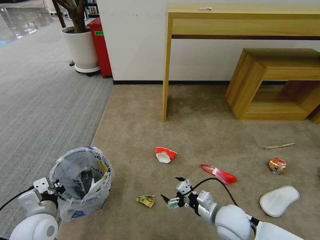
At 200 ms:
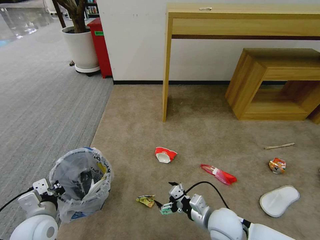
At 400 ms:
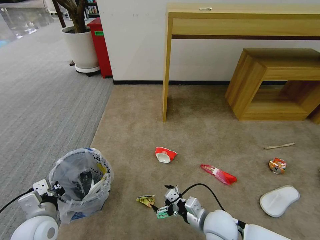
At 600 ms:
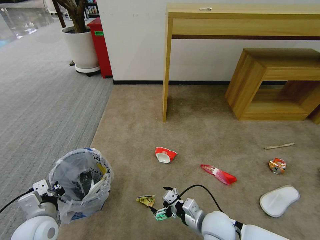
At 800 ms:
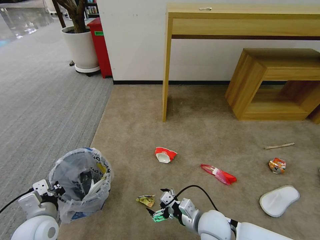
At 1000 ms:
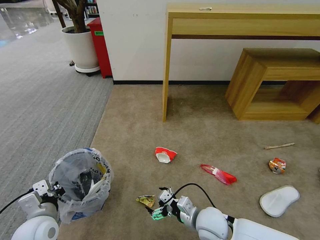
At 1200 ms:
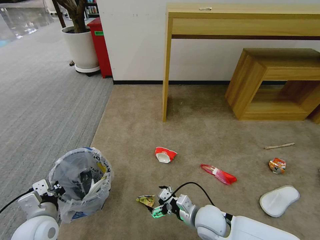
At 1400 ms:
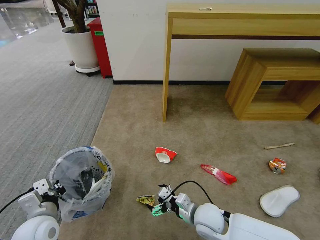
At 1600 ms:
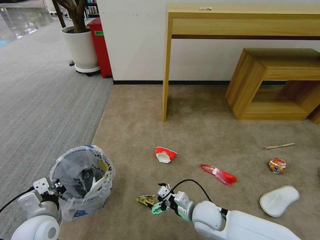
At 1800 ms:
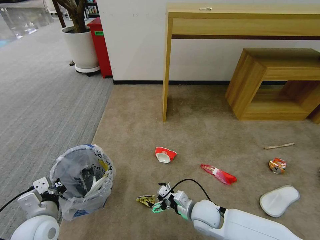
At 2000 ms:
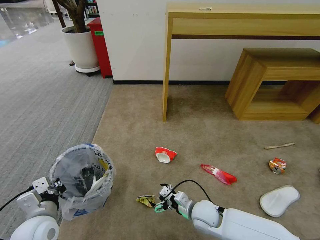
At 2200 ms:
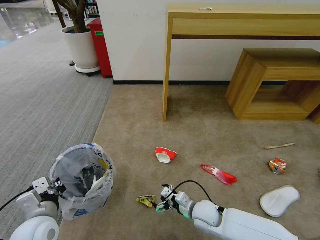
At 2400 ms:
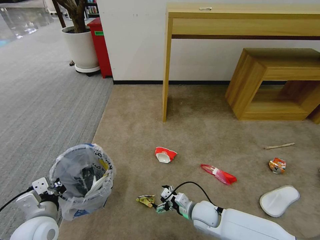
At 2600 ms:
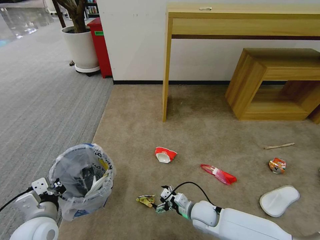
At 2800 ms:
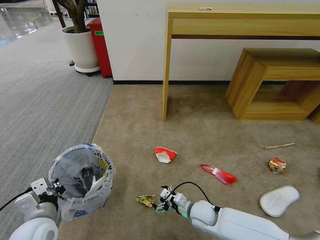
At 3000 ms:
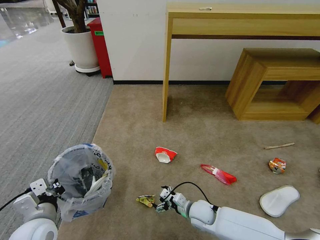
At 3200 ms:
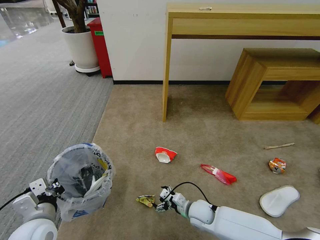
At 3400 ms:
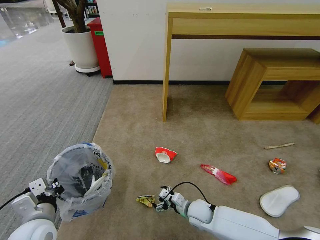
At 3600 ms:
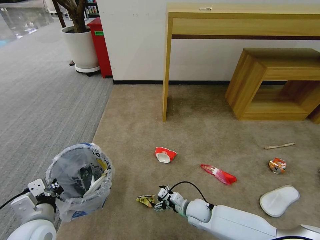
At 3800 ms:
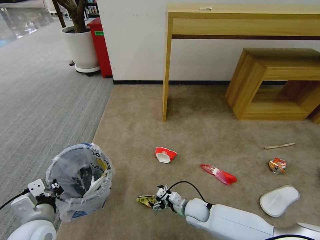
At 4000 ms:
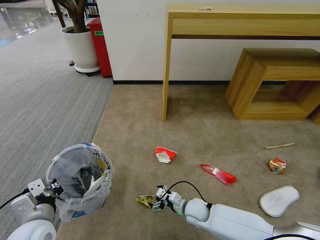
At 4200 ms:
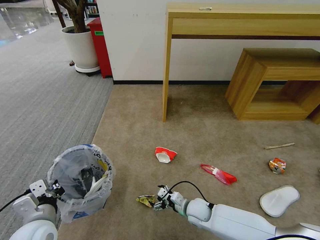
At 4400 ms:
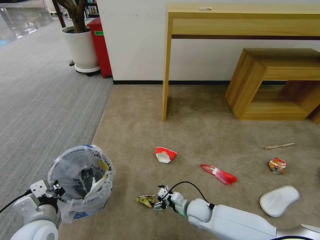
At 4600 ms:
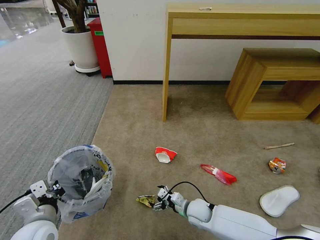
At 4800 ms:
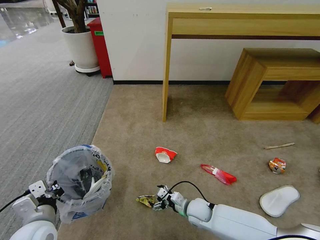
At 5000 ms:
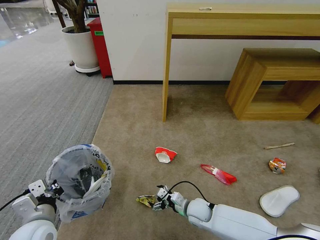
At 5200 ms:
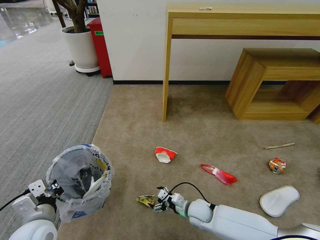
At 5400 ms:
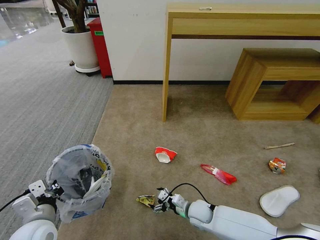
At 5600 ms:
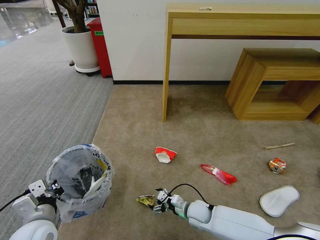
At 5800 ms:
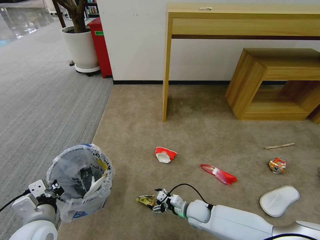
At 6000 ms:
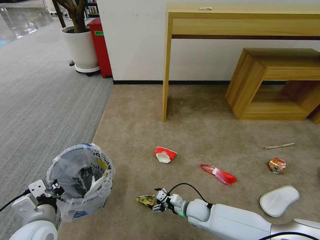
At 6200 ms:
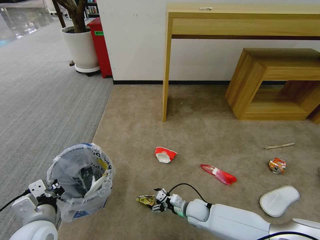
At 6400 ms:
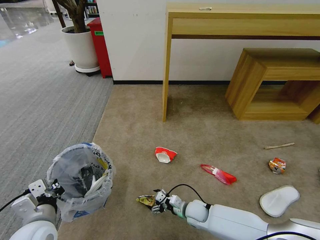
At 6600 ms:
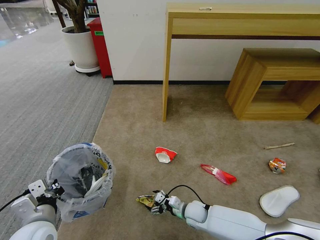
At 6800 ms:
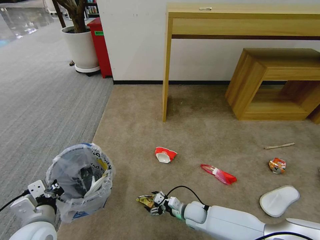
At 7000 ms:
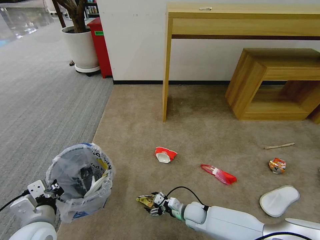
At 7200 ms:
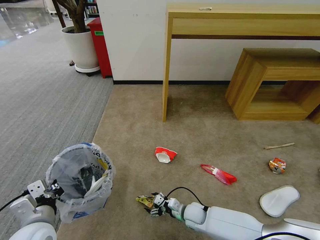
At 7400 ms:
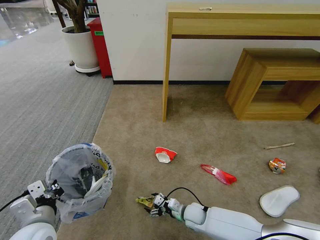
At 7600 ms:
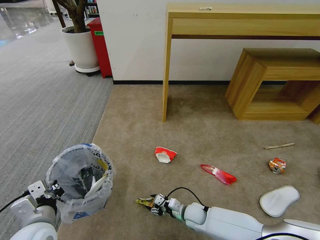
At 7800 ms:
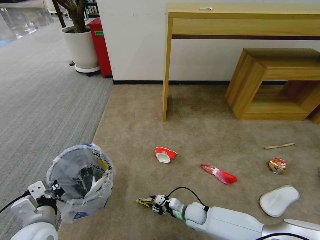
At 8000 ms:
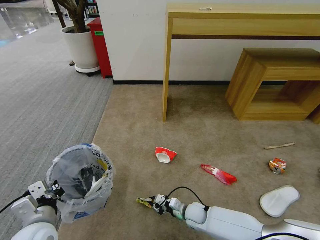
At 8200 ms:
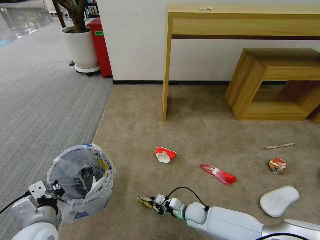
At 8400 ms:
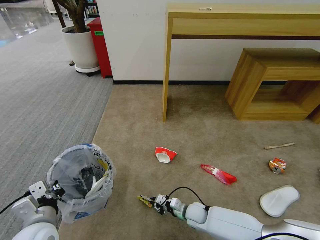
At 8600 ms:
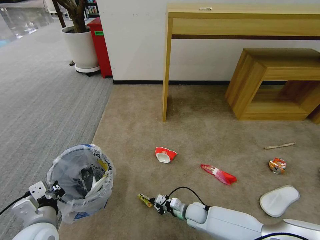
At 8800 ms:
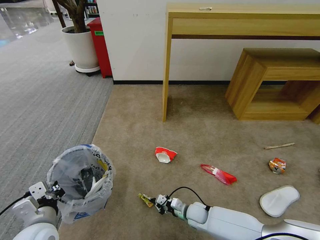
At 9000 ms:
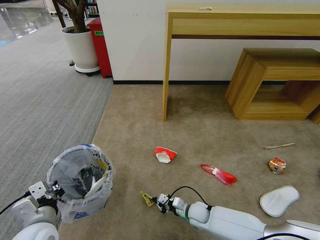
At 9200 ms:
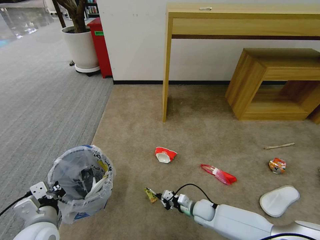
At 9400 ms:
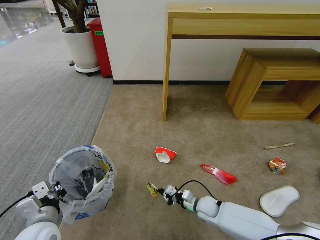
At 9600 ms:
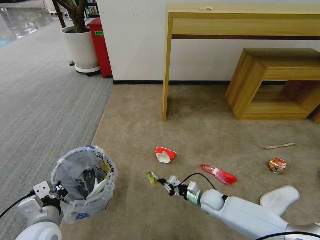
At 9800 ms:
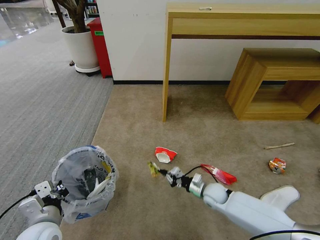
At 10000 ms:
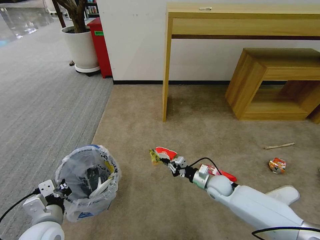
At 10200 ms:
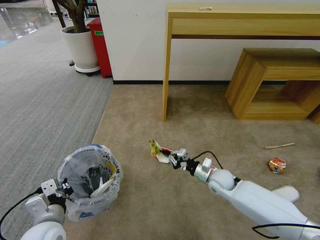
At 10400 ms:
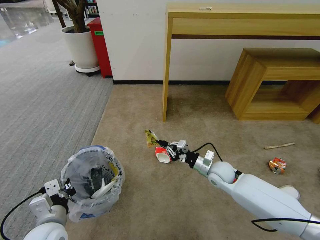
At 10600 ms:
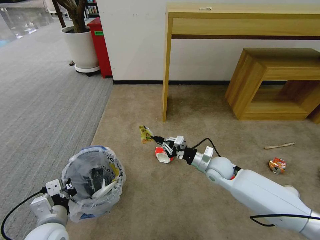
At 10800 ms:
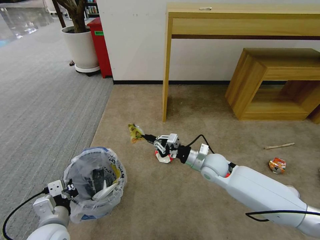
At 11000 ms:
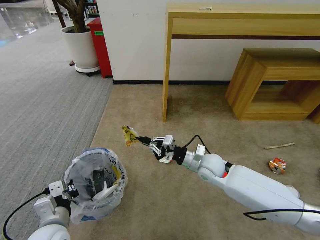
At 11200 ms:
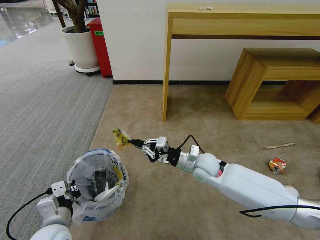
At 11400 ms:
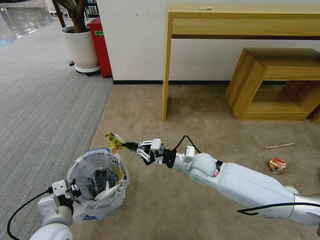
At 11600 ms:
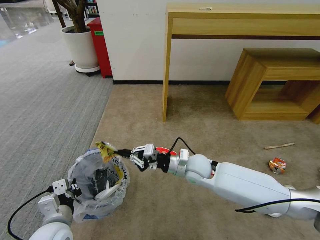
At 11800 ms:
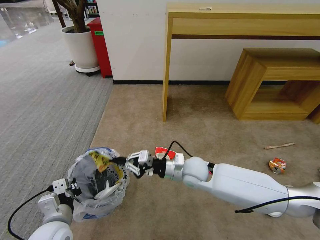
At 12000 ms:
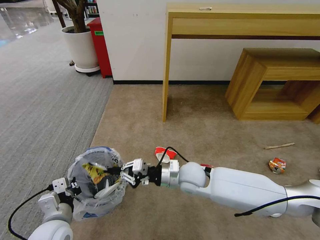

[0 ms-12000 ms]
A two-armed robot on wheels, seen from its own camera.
Task of the whole recording: Pick up the trash bin and place the garbage on the floor into it.
0 ms to 1600 ms: The right gripper moves to the left, roughly 5 cm.
1600 ms to 3000 ms: The right gripper is displaced downward by roughly 10 cm.
3000 ms to 6000 ms: There are only small adjustments of the grippers.
6000 ms to 7600 ms: The grippers stay close to where they were, moving slightly.
7600 ms to 9000 ms: The right gripper closes up.
9000 ms to 10400 ms: The right gripper moves upward and forward, approximately 20 cm.
10400 ms to 12000 ms: The right gripper travels to the left and upward by roughly 15 cm.

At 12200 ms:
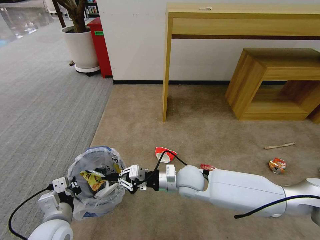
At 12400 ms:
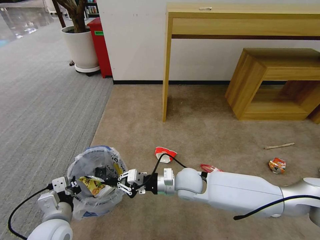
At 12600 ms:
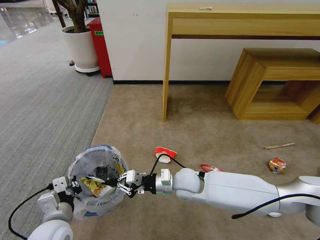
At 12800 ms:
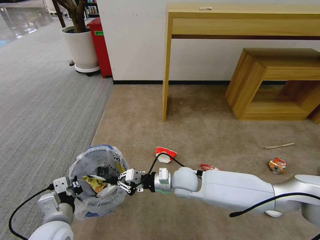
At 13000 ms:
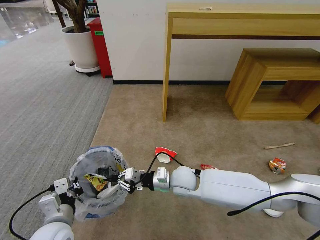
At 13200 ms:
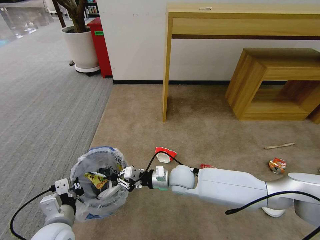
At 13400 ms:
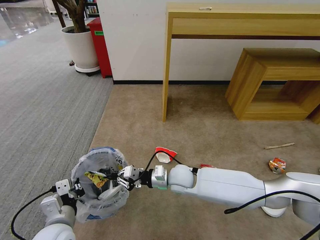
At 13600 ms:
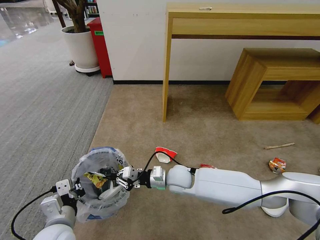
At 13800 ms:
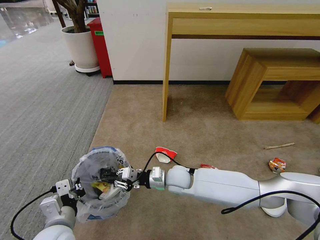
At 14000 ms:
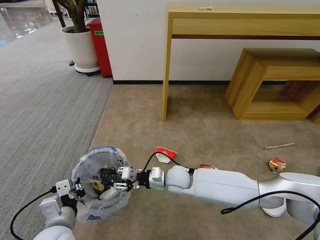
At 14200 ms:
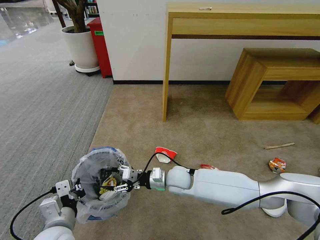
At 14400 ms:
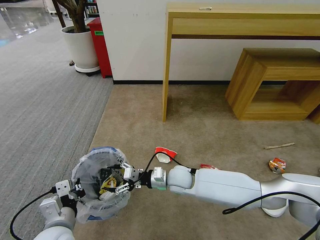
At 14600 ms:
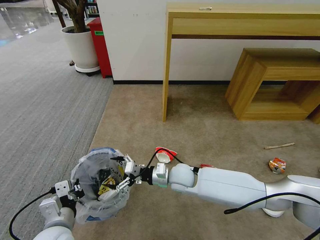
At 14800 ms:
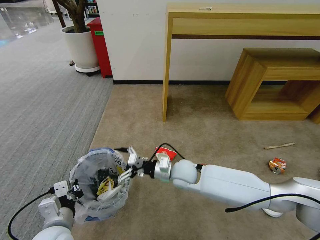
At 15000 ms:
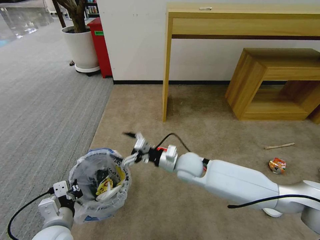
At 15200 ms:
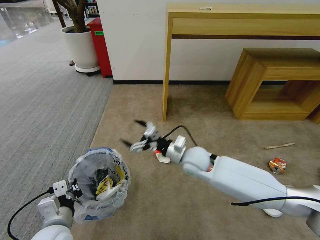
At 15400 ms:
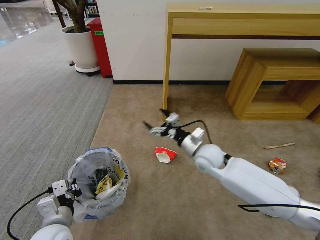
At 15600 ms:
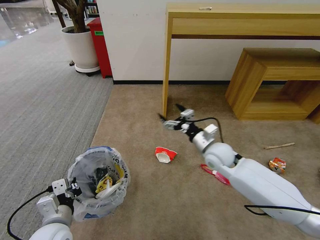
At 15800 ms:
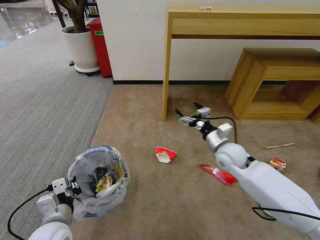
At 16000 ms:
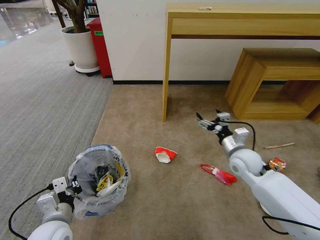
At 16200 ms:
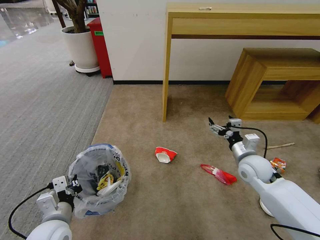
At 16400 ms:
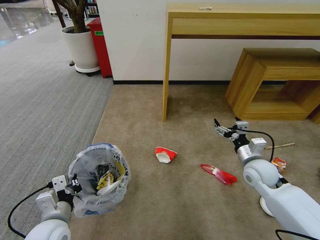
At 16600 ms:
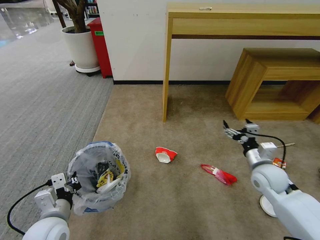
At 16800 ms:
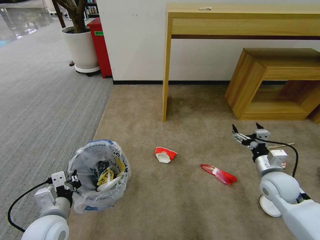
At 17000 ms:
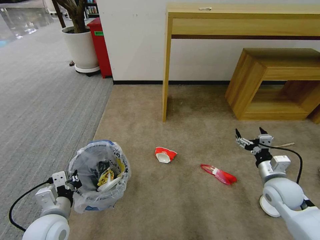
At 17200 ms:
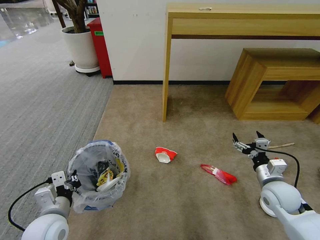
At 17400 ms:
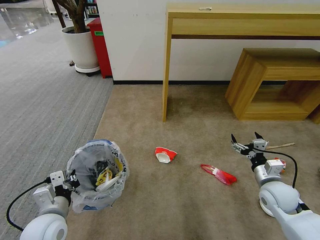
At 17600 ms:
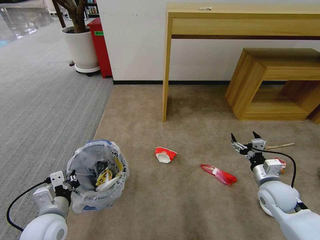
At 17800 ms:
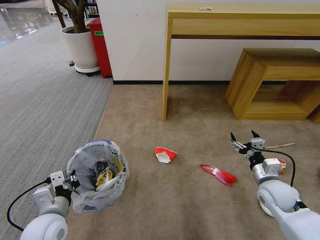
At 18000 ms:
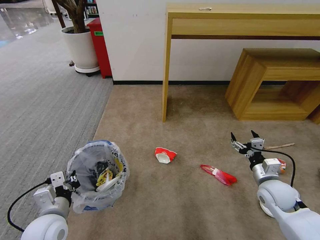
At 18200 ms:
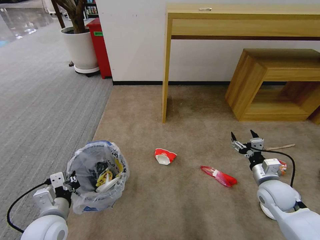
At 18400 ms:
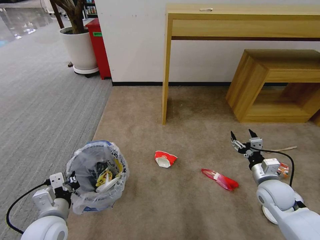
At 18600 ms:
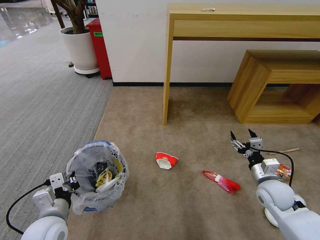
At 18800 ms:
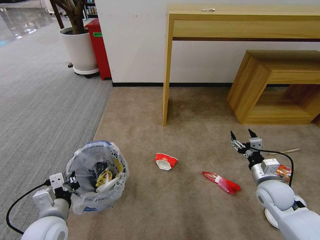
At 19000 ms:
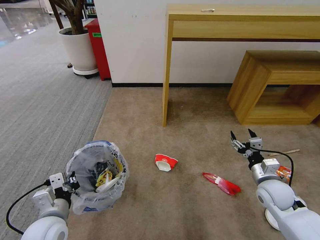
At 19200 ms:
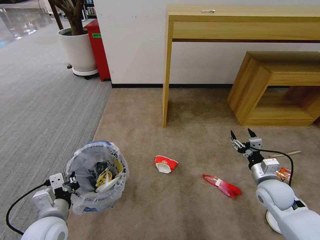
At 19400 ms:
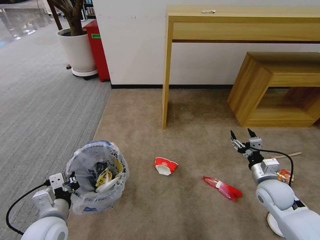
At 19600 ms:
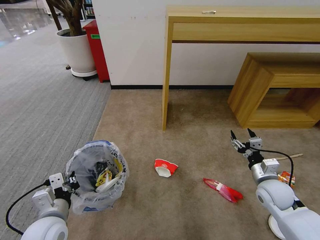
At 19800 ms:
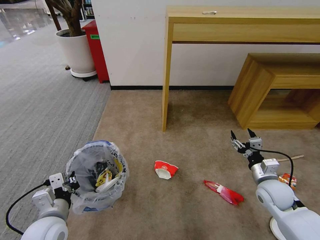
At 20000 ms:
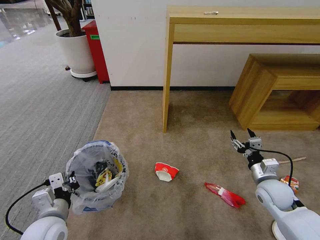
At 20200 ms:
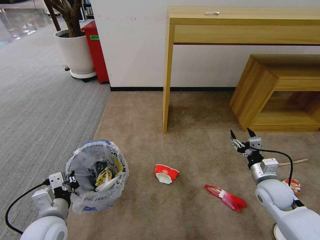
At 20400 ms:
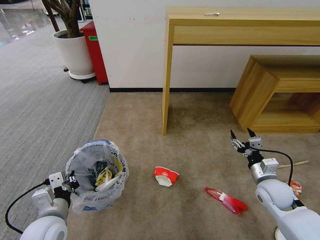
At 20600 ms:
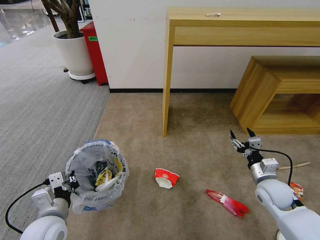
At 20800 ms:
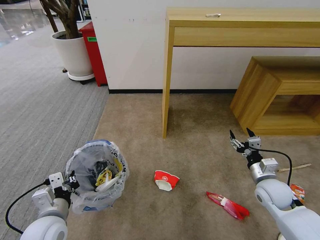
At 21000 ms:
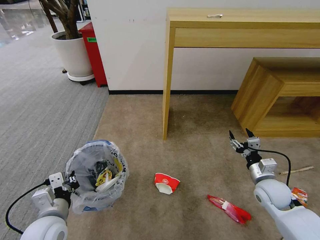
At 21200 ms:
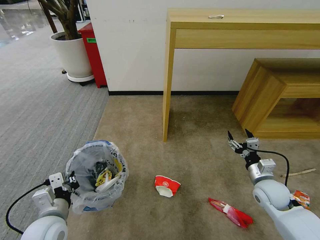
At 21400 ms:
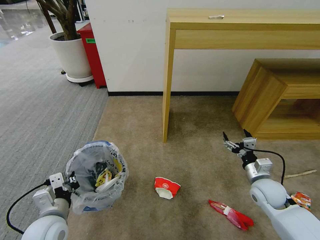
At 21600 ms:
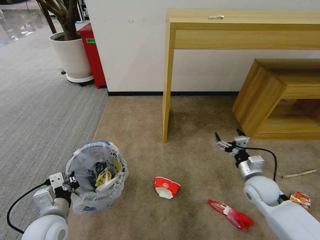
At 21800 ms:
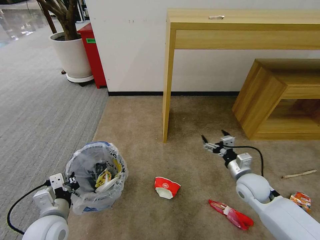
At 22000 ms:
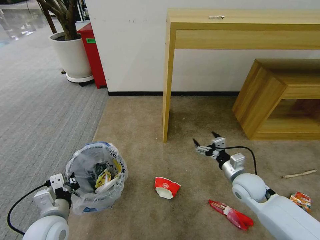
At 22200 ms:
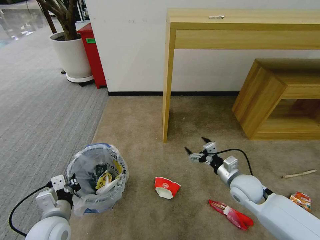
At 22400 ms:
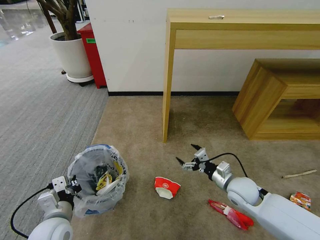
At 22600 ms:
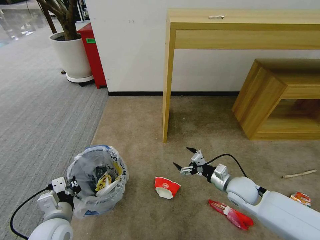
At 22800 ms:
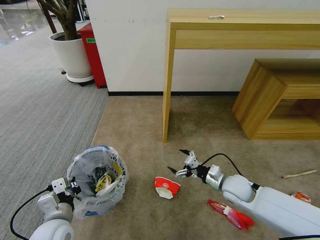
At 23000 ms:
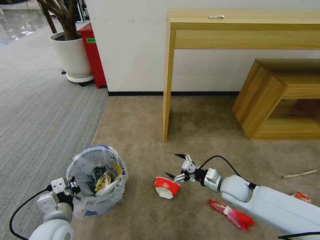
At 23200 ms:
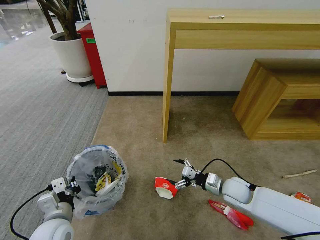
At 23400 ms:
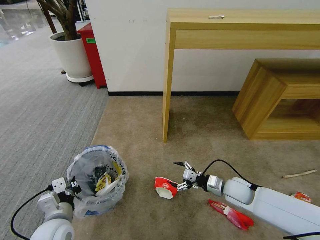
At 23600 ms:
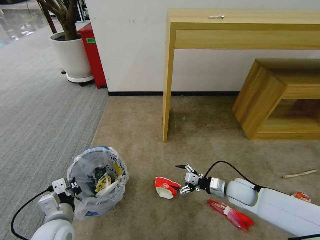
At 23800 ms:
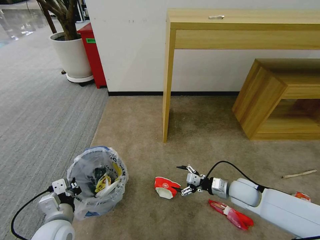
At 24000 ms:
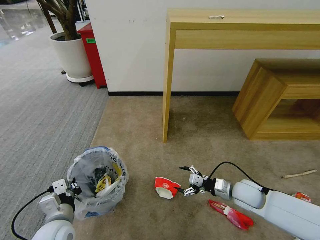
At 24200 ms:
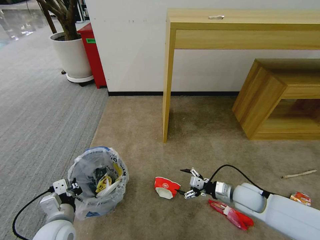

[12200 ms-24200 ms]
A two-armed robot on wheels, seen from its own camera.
Task of the whole recording: Pick up the trash bin and place the garbage on the floor into it.
12200 ms to 13800 ms: The right gripper moves roughly 5 cm.
13800 ms to 15200 ms: The right gripper goes roughly 10 cm upward and to the right, and opens its fingers.
15200 ms to 16600 ms: The right gripper travels to the right by roughly 25 cm.
16600 ms to 18200 ms: The right gripper ends up about 5 cm from where it was.
18200 ms to 21200 ms: Both grippers stay about where they are.
21200 ms to 22600 ms: The right gripper travels to the left by approximately 10 cm.
